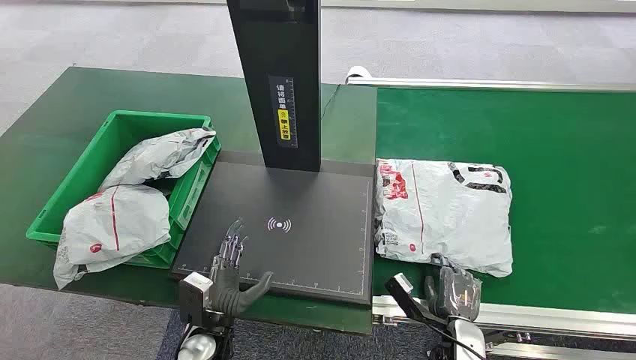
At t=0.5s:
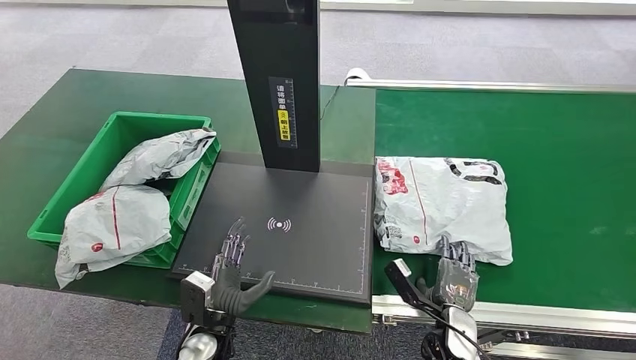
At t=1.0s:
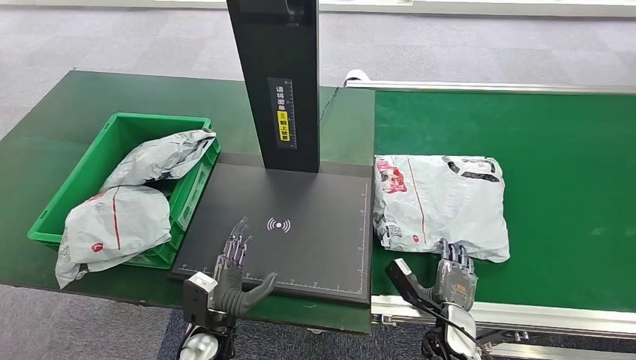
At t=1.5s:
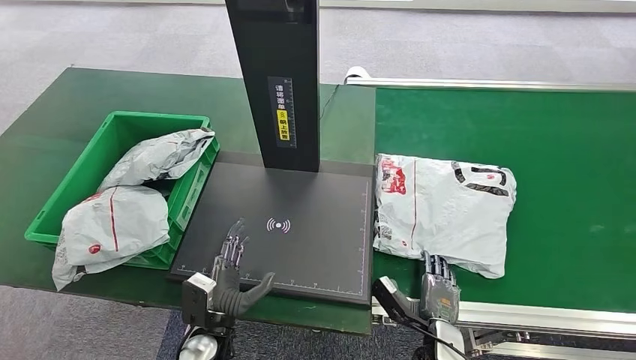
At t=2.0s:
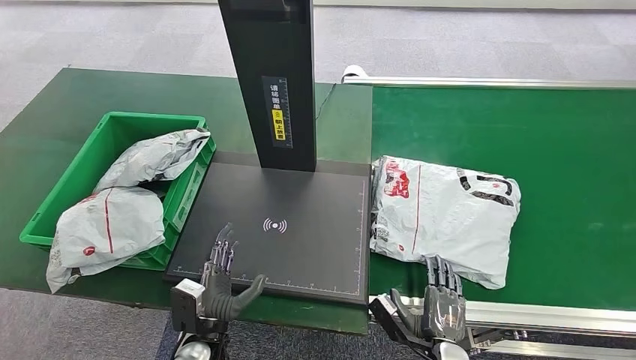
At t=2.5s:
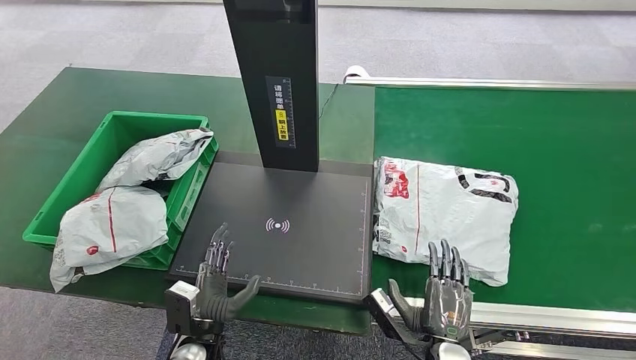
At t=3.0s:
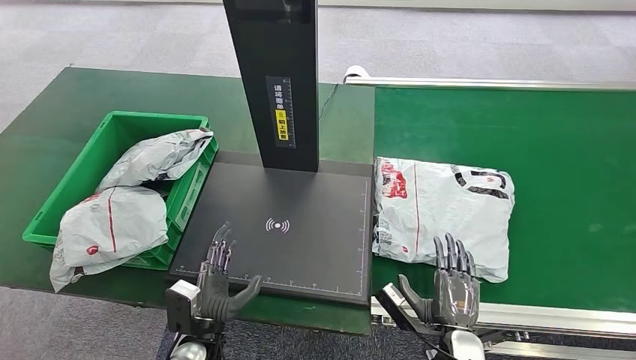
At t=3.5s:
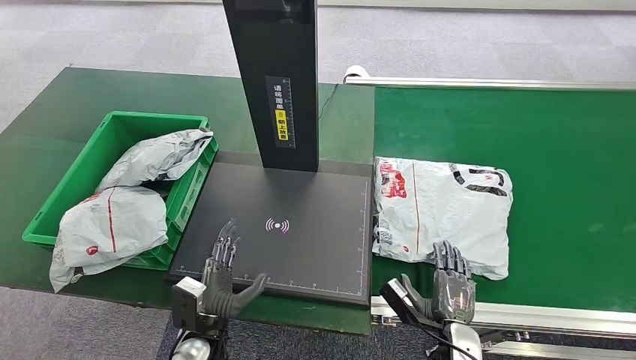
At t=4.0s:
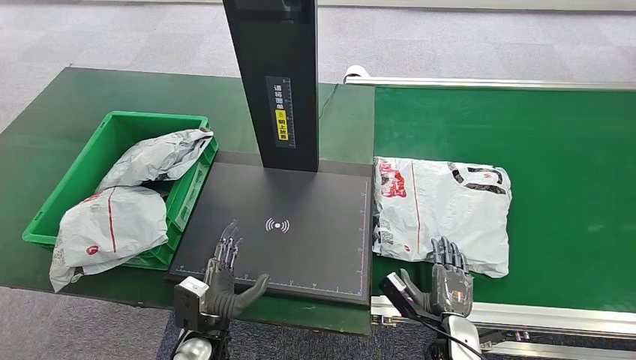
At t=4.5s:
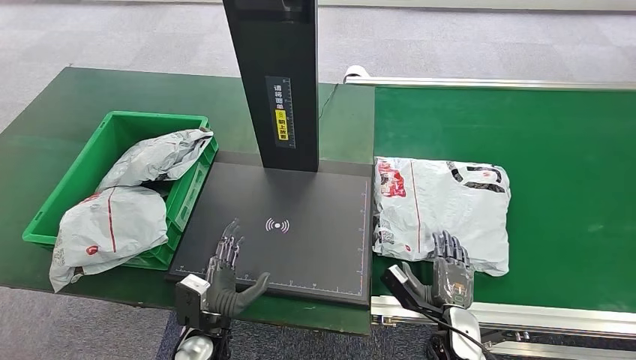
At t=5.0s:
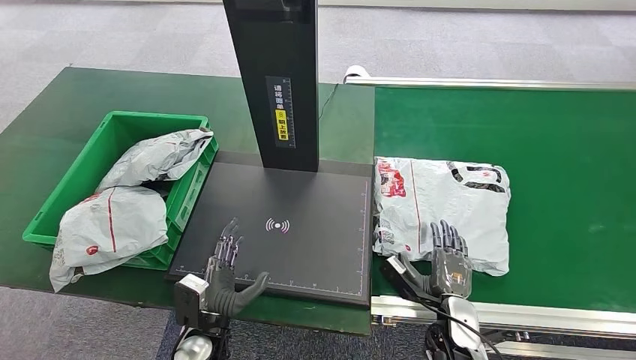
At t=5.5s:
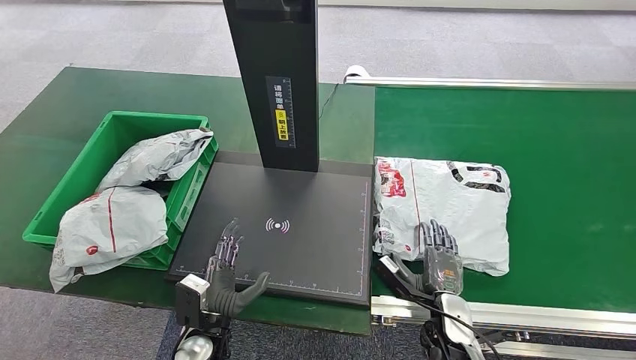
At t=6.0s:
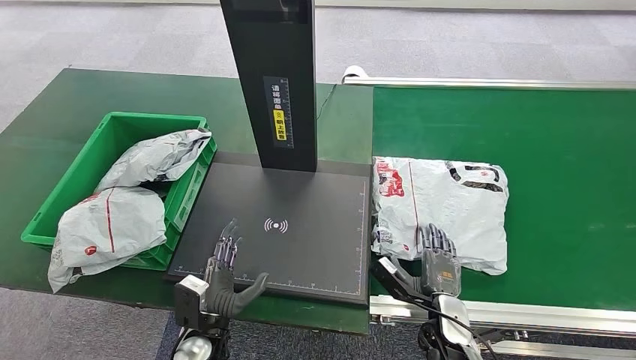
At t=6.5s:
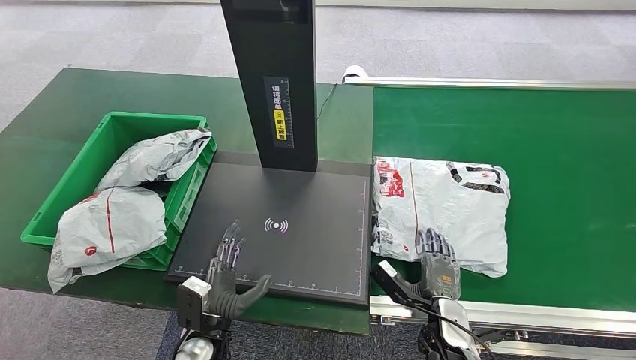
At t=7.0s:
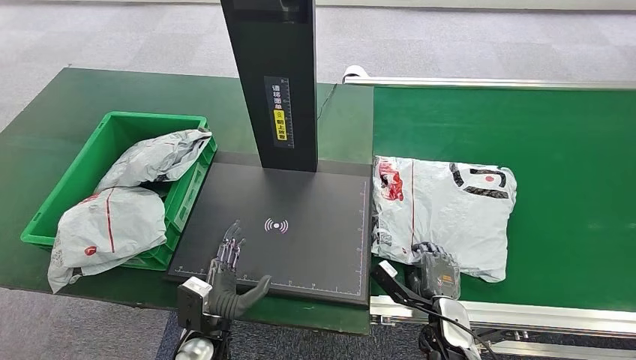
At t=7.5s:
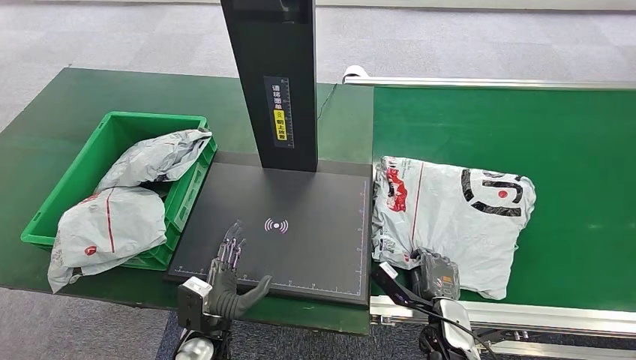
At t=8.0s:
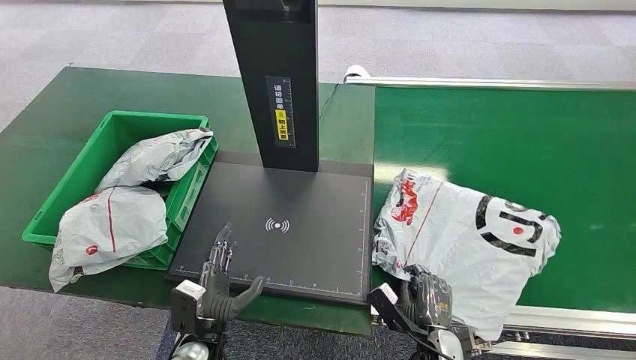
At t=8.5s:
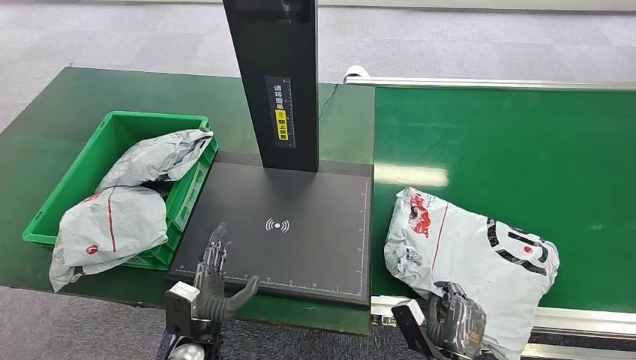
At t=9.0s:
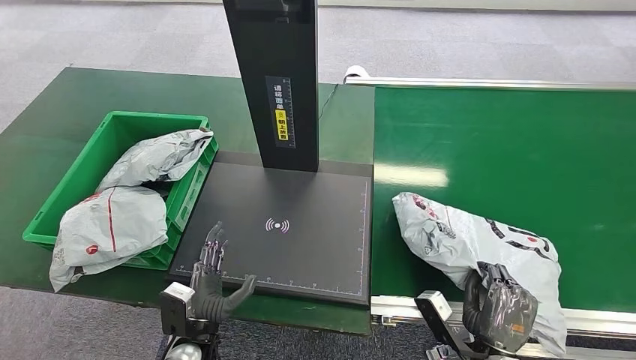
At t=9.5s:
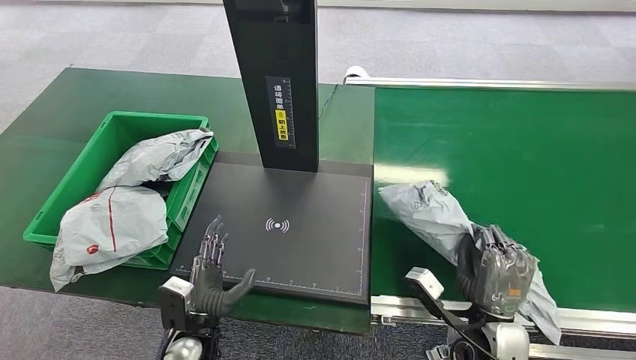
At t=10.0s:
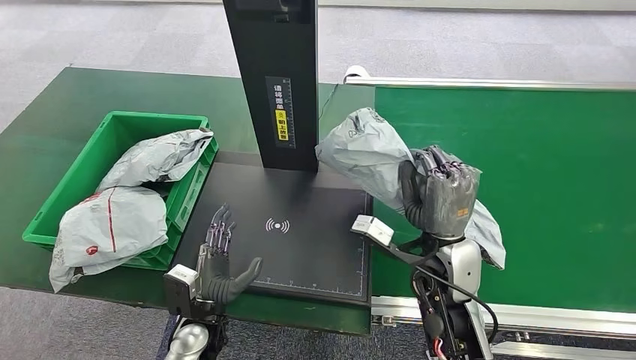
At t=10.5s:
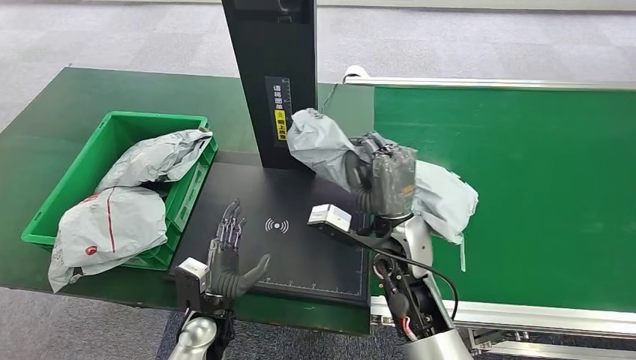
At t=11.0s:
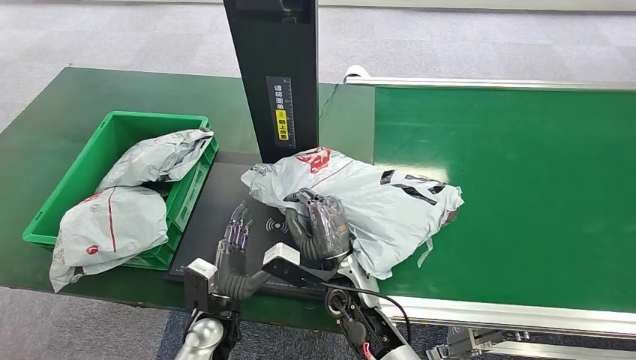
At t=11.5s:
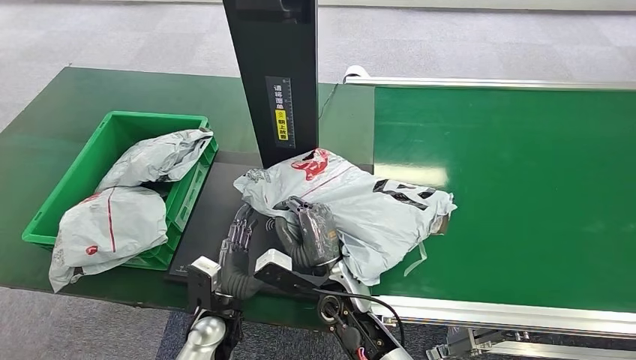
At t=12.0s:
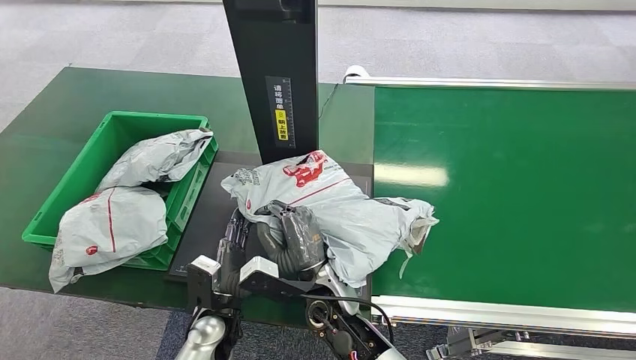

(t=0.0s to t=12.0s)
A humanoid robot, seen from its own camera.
Step, t=0.0s - t=8.5s: Pick up the package from the conveyor belt.
t=2.0s - t=4.0s: The right hand shifts by about 5 cm.
t=4.0s - t=6.0s: The hands stay close to where they were, moving slightly.
t=6.0s - t=8.0s: The right hand heads backward, covering some 5 cm.
t=8.0s - t=10.0s: The right hand shifts approximately 25 cm upward and forward.

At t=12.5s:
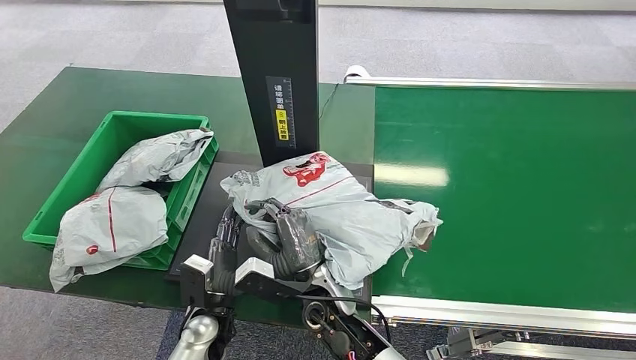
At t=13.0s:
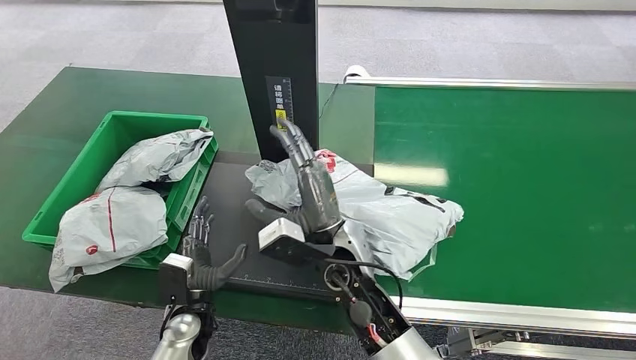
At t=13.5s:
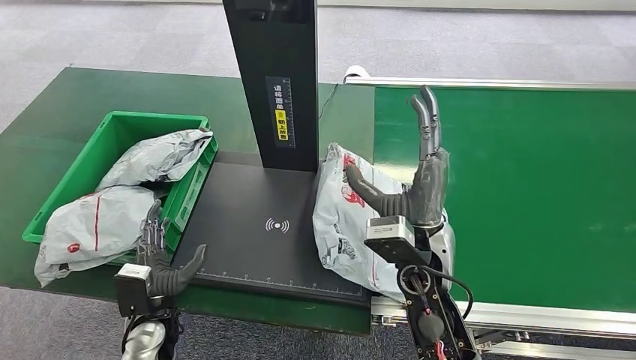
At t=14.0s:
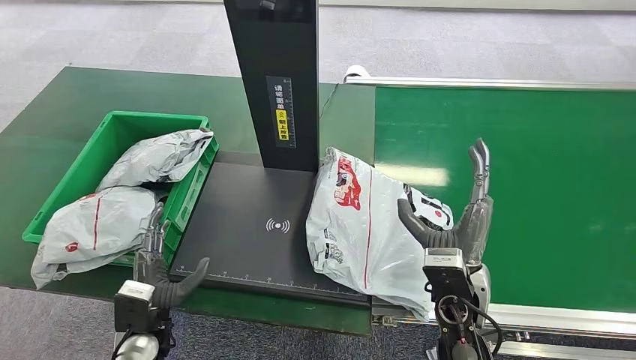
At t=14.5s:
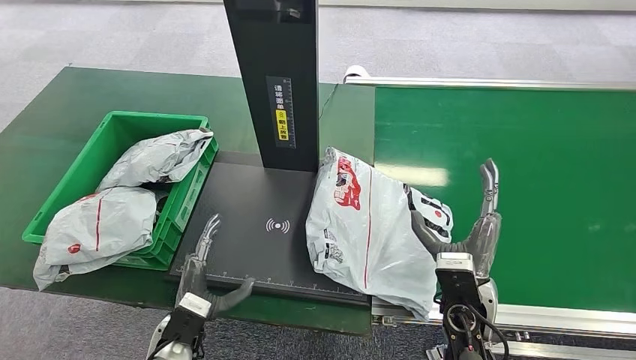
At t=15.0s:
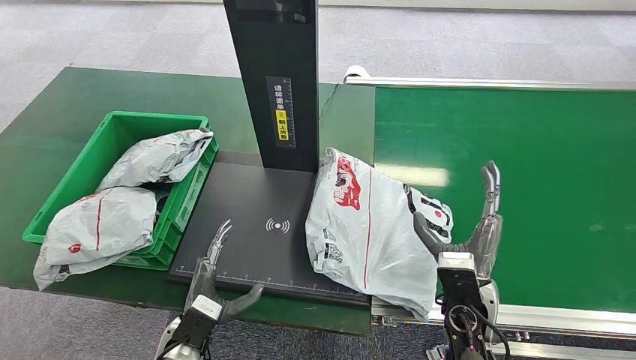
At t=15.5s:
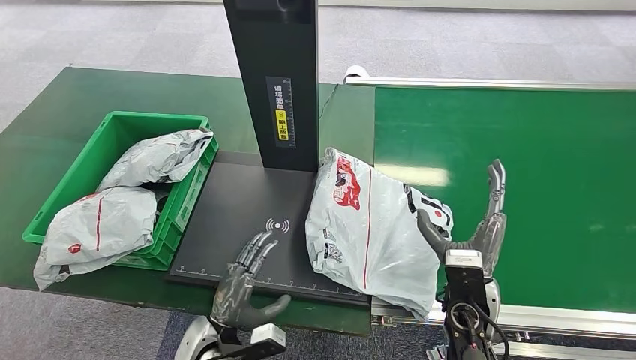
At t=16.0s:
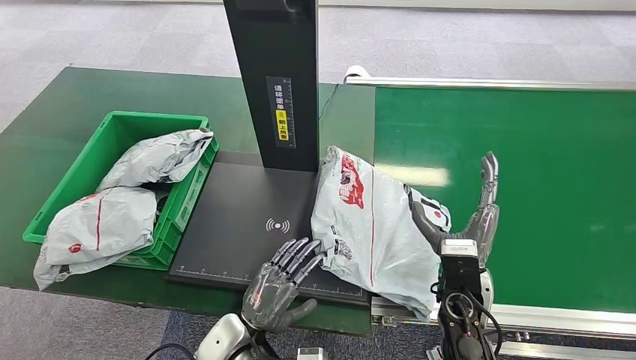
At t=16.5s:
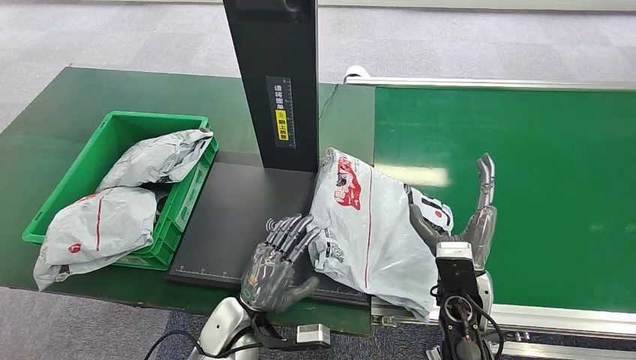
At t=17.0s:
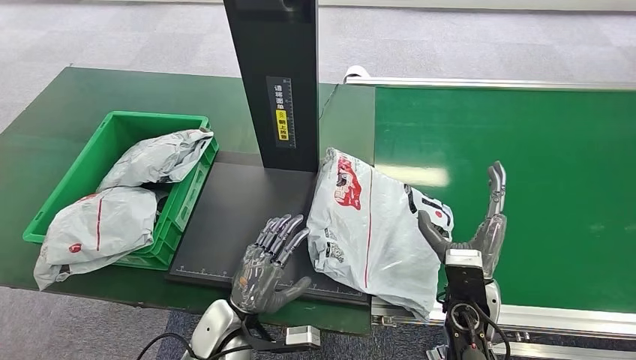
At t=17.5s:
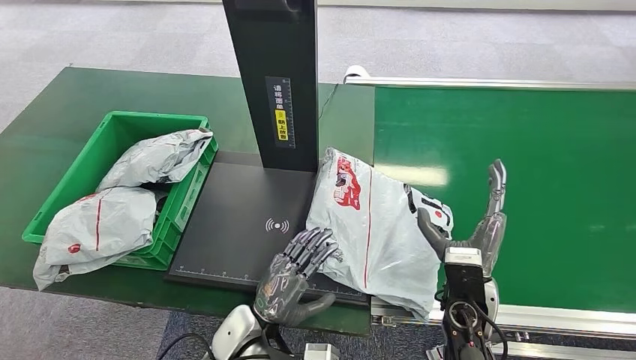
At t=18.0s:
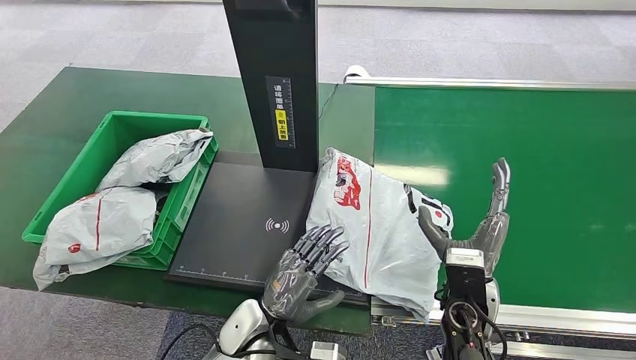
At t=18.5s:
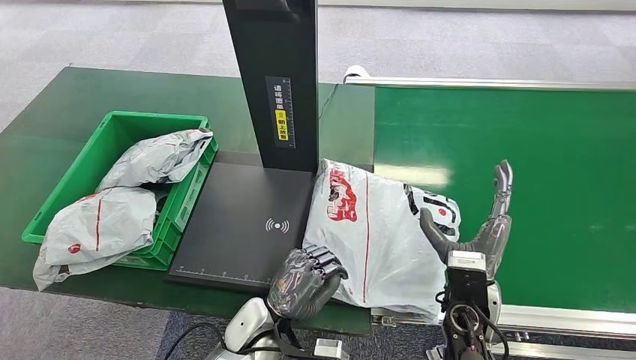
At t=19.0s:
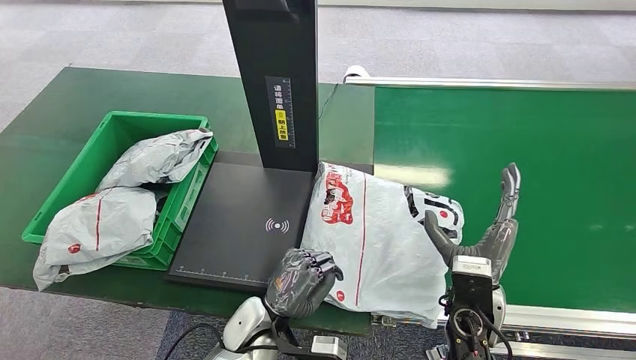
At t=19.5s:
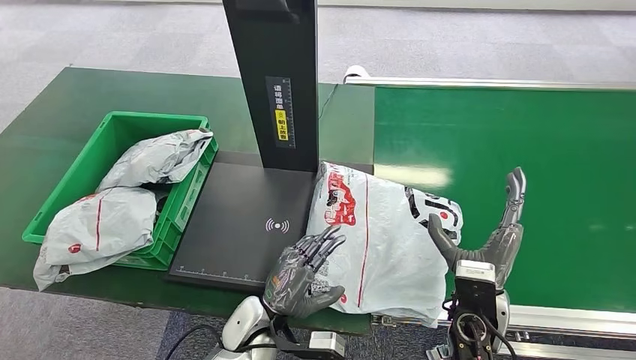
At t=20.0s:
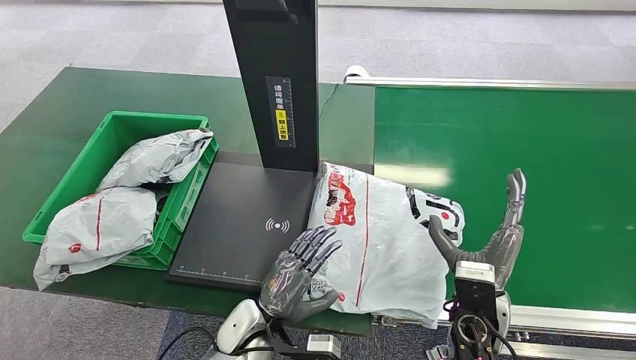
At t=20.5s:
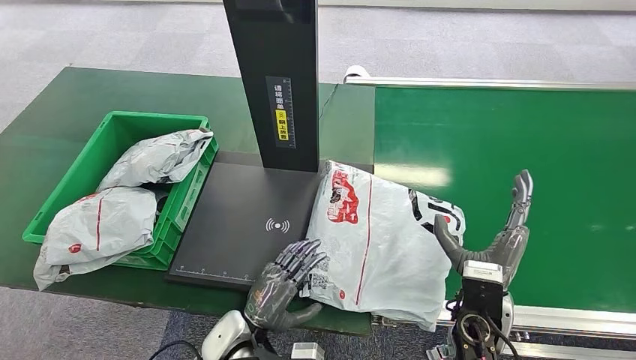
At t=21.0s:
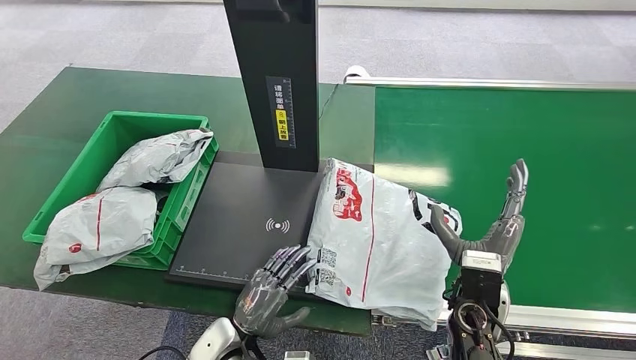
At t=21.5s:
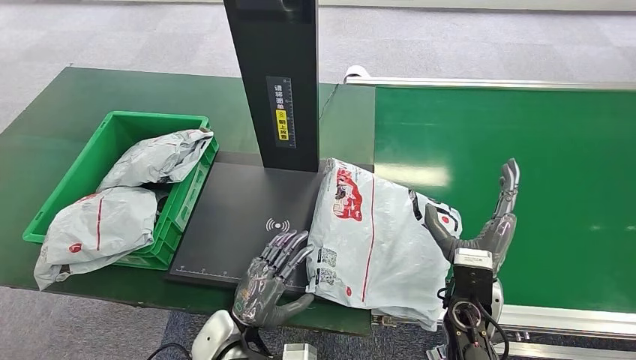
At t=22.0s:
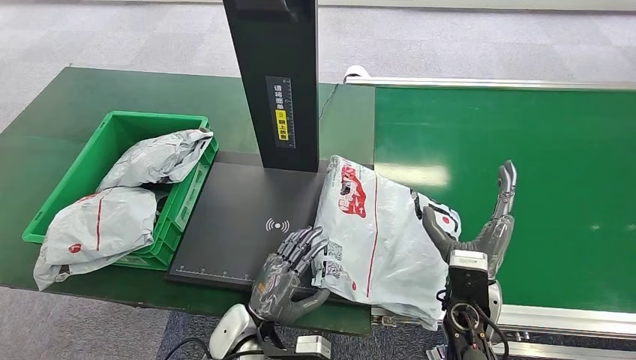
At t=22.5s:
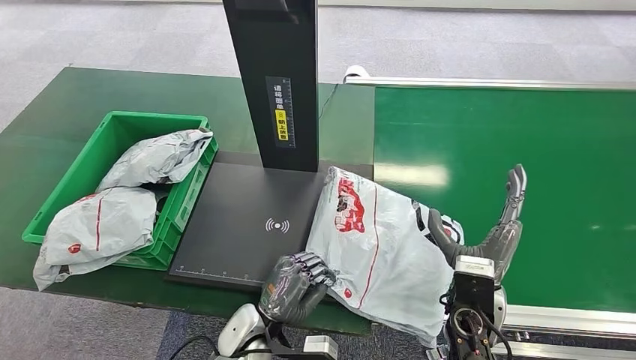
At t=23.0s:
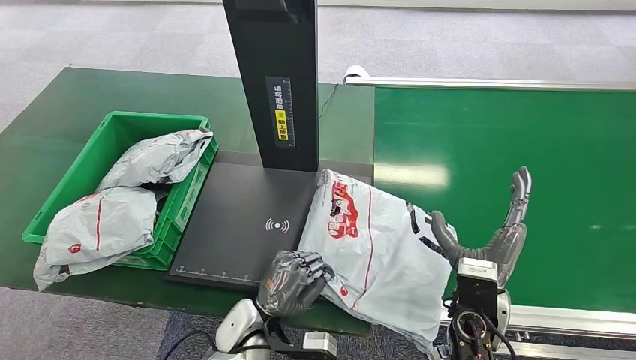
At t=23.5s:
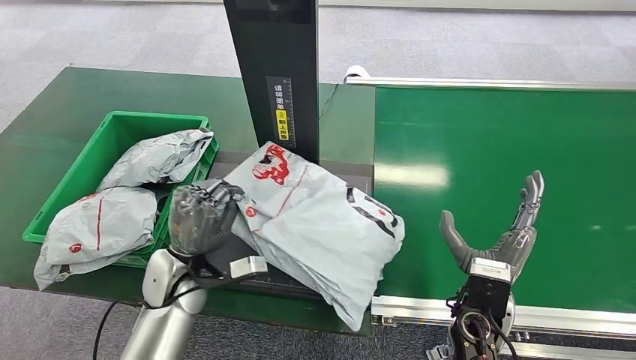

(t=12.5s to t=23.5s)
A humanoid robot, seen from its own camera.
t=12.5s - t=14.5s: The left hand heads to the left, covering about 5 cm; the right hand goes roughly 20 cm to the right.
t=14.5s - t=16.0s: The left hand shifts roughly 10 cm to the right.
t=16.0s - t=21.5s: There are only small adjustments of the hands.
